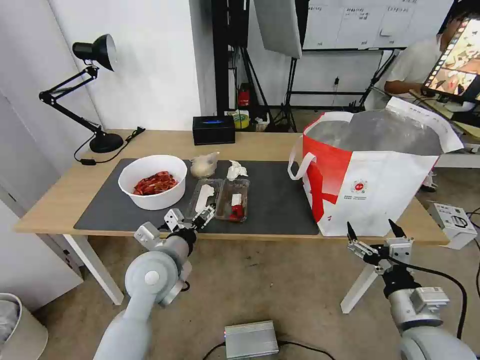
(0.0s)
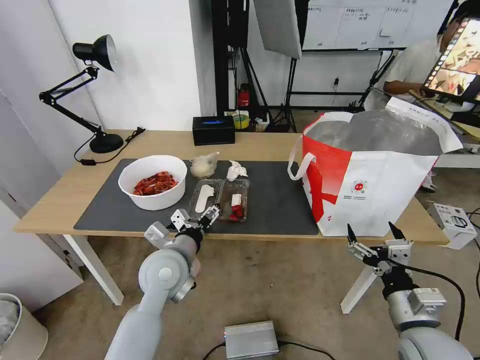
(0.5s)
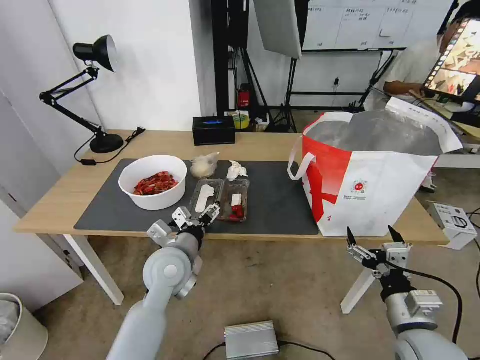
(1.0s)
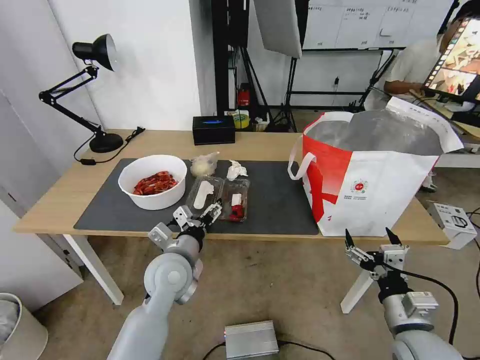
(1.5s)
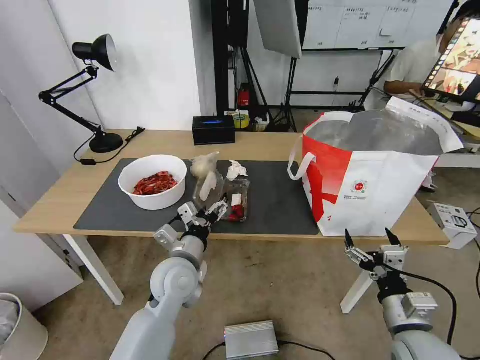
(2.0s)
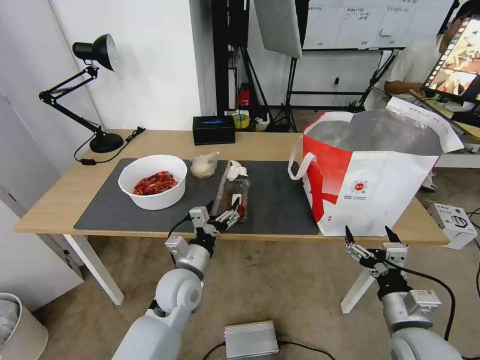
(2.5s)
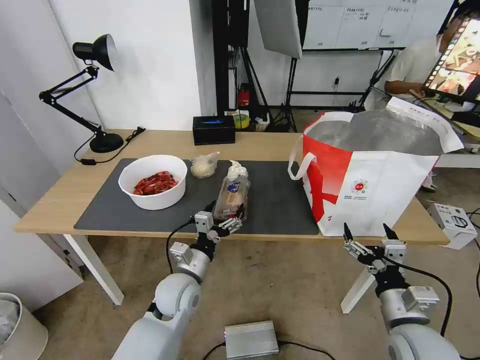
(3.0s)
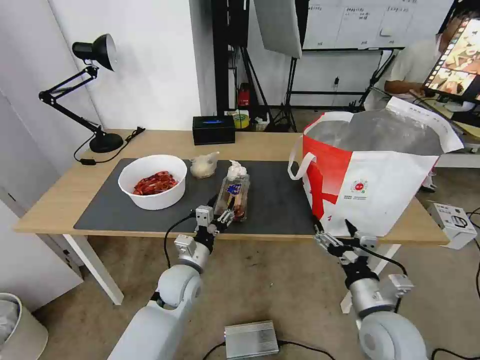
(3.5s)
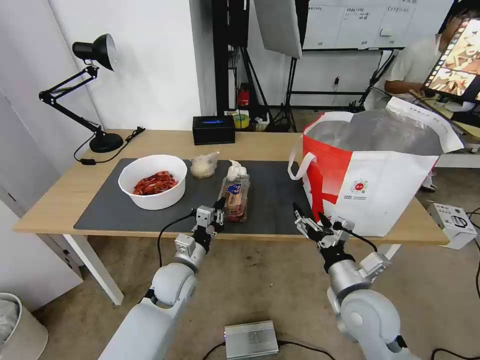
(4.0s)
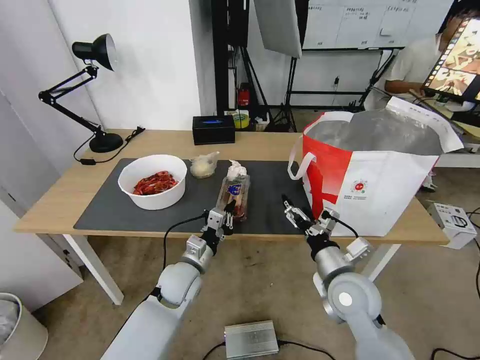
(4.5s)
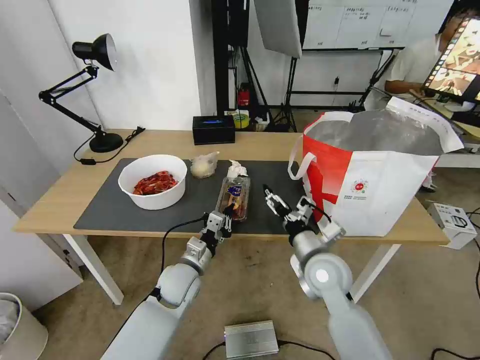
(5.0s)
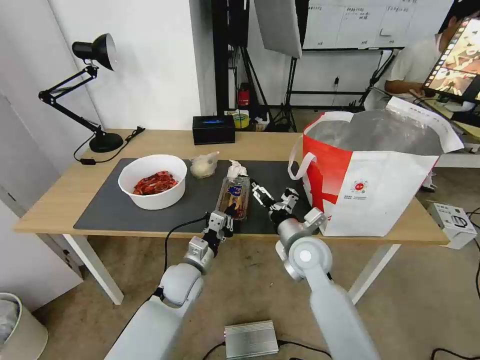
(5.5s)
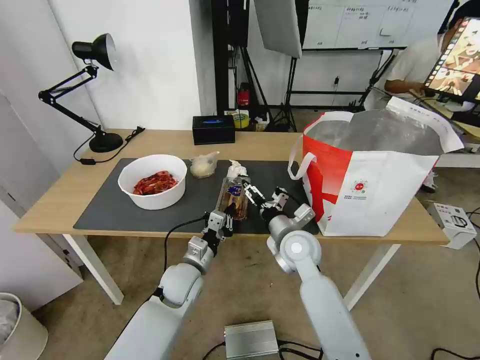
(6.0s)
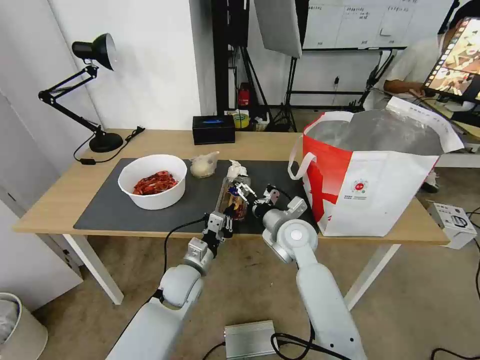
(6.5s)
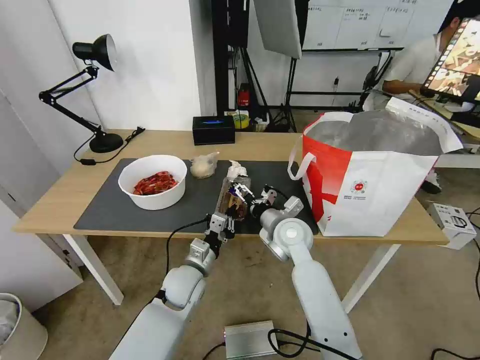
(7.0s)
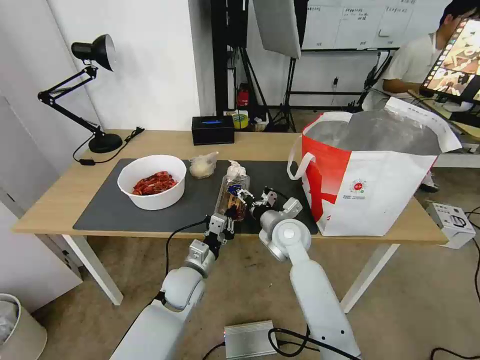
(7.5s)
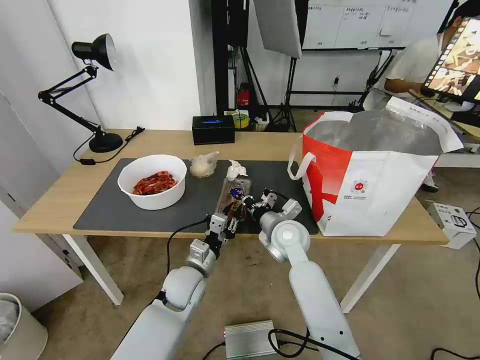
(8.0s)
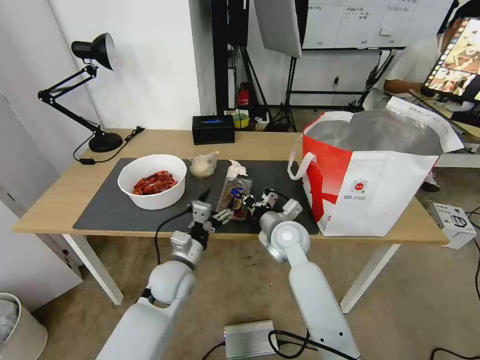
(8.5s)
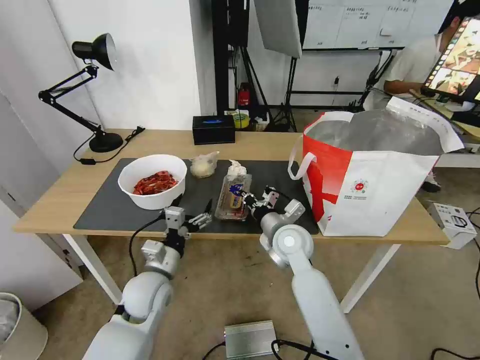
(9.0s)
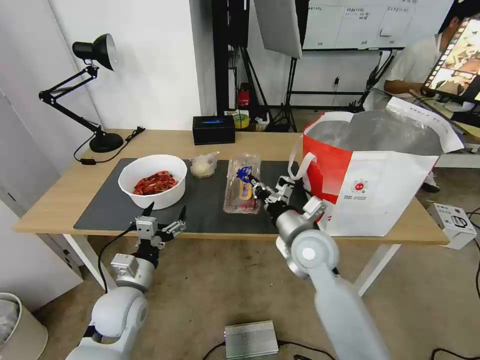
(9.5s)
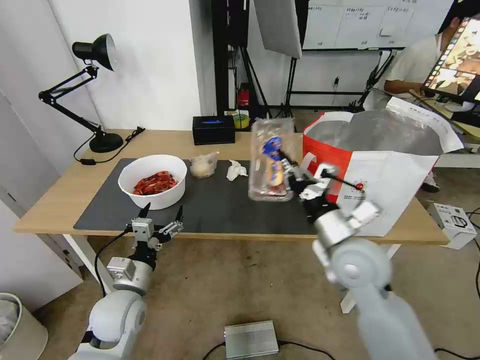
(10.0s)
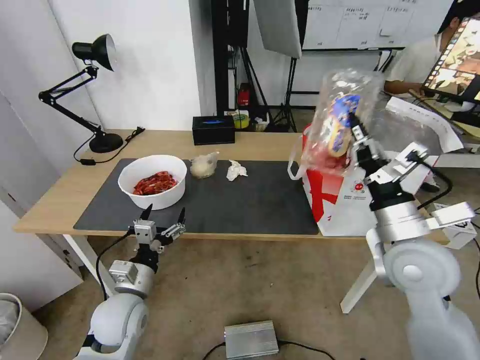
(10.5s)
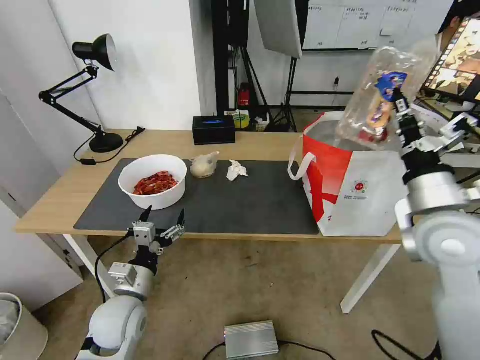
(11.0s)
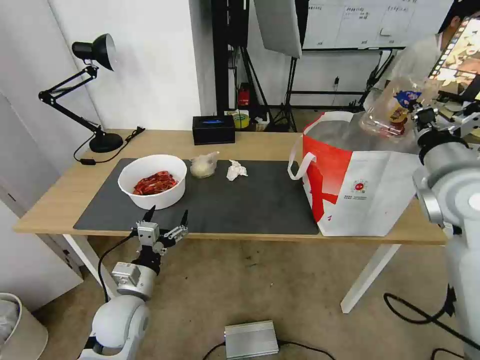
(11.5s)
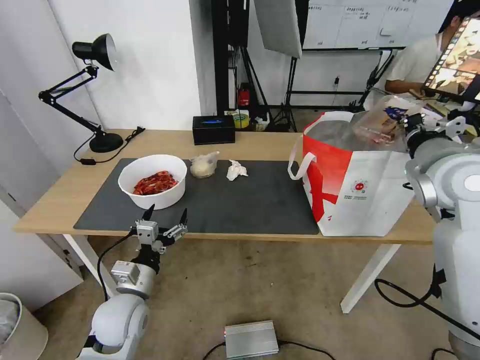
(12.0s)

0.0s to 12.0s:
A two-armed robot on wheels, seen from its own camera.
Task of the whole recording: Pick up the trash from the table and place it into the takeout bag.
0.0s to 2.0s: The left gripper ends up approximately 5 cm from where it was.
2.0s to 4.0s: The right gripper moves to the left and forward, about 10 cm. The left gripper heads downward, covering some 5 cm, and closes its fingers.
4.0s to 6.0s: The right gripper travels forward and to the left by some 20 cm.
6.0s to 8.0s: The right gripper closes up.
8.0s to 10.0s: The left gripper travels to the left and backward by about 15 cm, and opens up, while the right gripper shifts some 20 cm backward, to the right and upward.
10.0s to 12.0s: The right gripper heads upward, to the right and forward, covering about 20 cm.

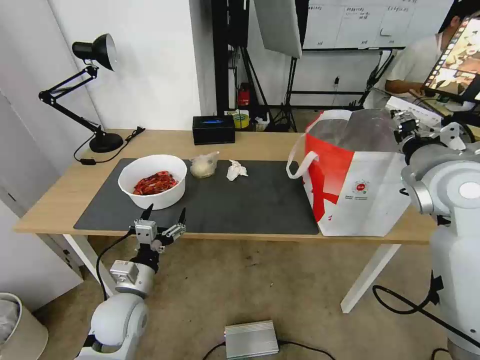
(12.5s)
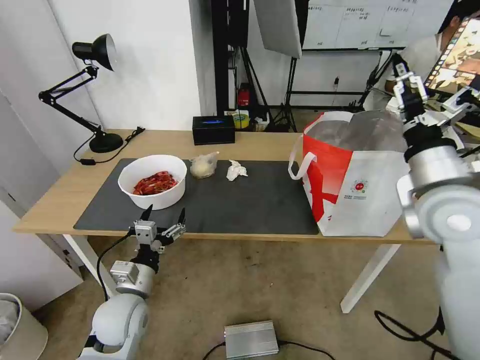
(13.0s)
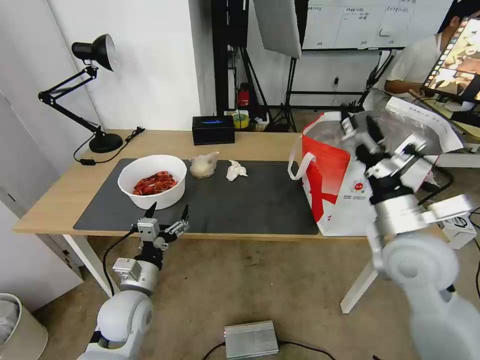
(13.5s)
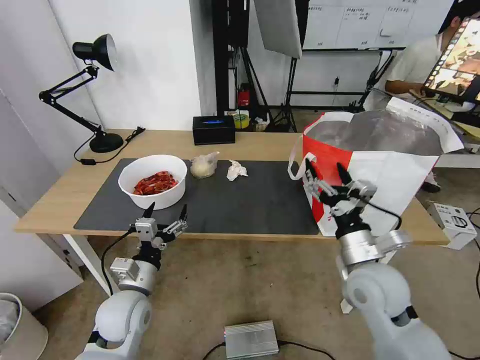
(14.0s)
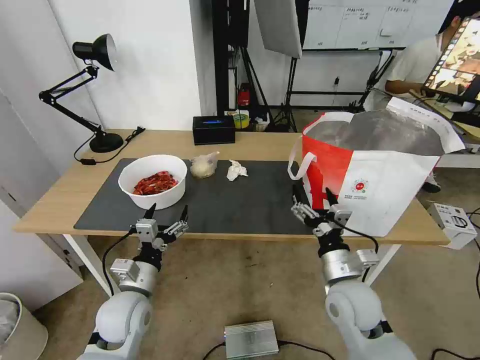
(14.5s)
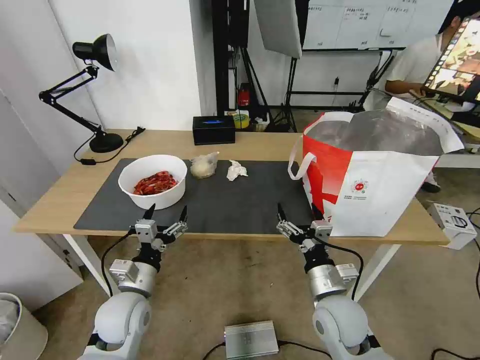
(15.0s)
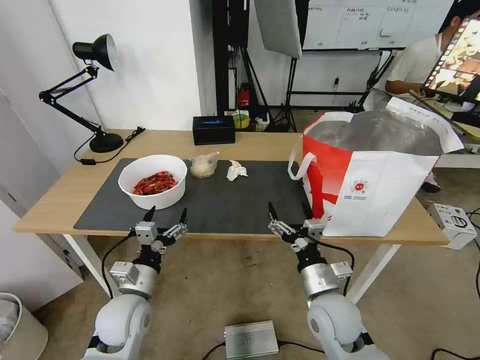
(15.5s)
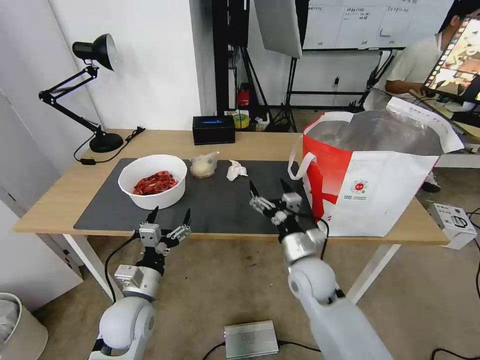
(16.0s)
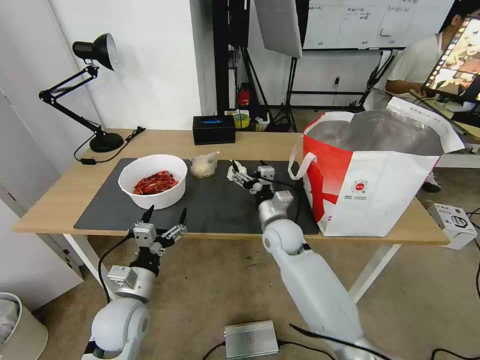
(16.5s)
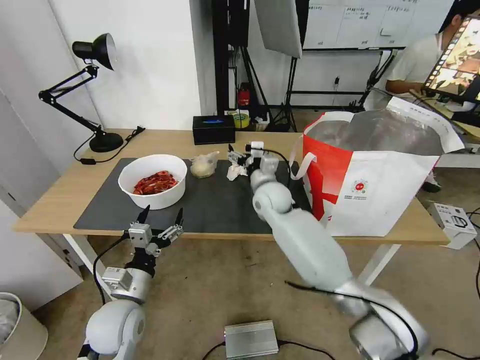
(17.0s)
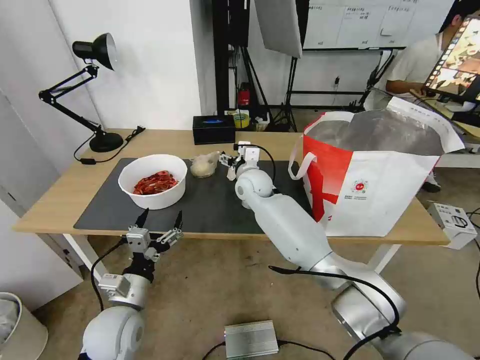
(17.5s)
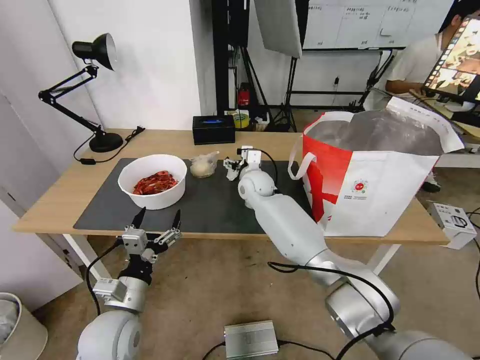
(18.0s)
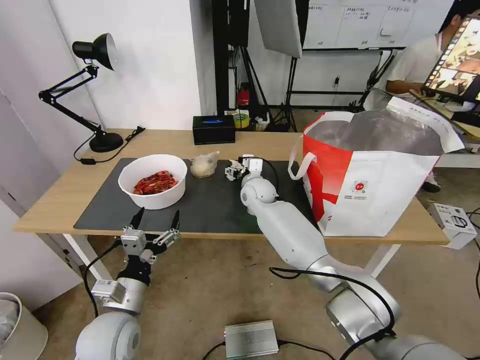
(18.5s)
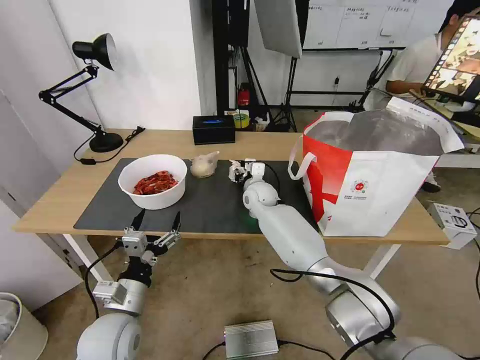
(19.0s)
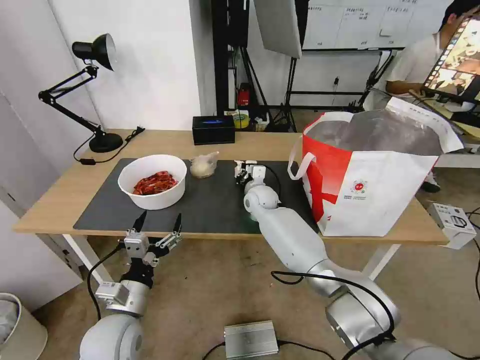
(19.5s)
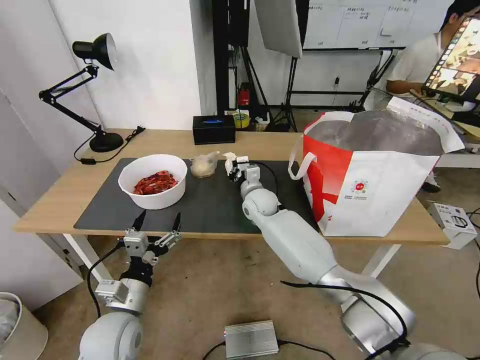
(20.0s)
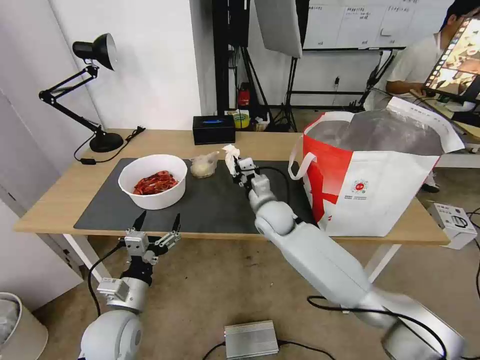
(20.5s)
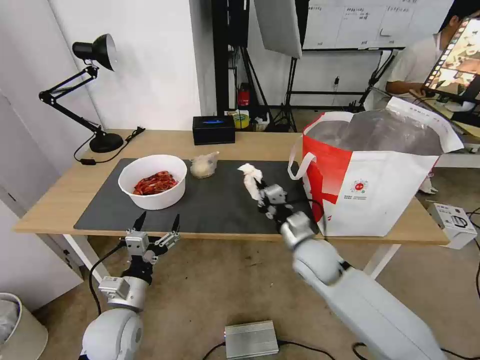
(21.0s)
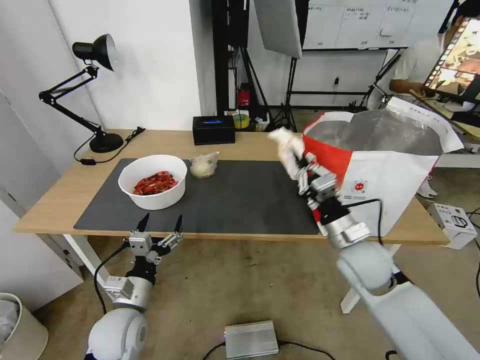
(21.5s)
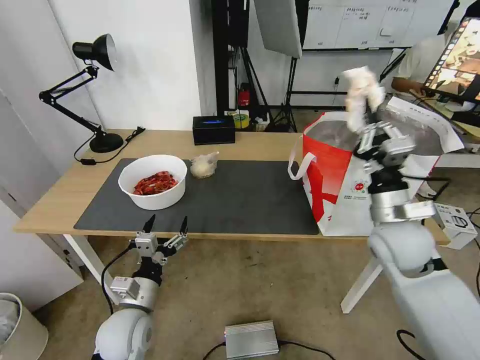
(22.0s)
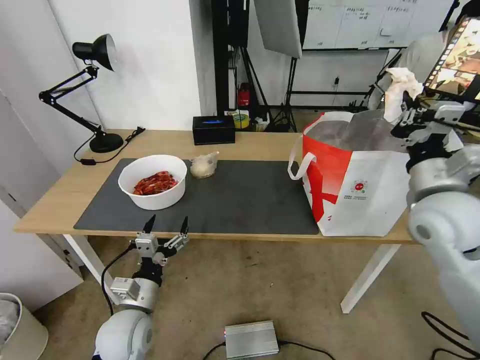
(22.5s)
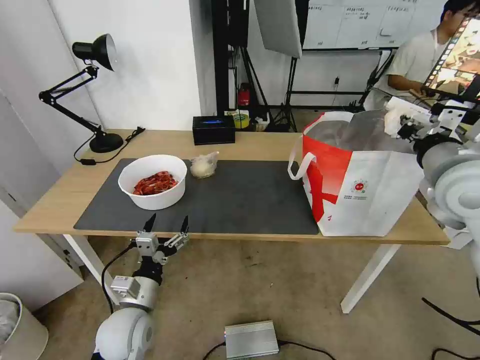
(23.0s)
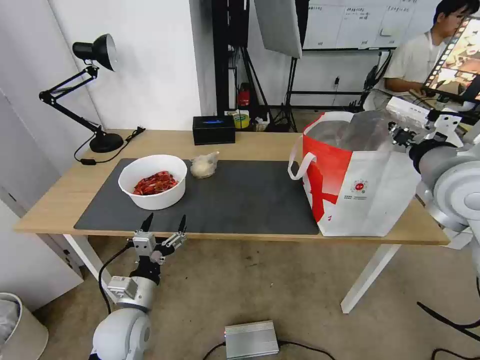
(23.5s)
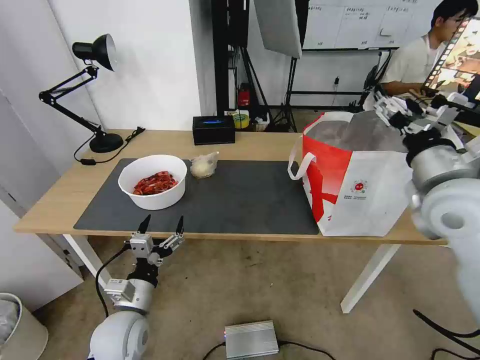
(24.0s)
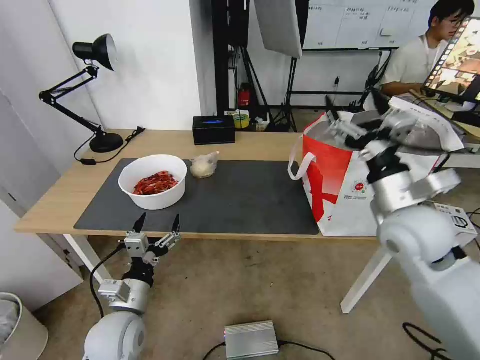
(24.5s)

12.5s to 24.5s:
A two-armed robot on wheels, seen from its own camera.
Task of the whole recording: Pick up the trash from the table and place it into the takeout bag.
12.5s to 14.5s: The right gripper goes roughly 25 cm downward, to the left and backward, and opens up.
14.5s to 16.5s: The right gripper heads forward and to the left, covering some 20 cm.
16.5s to 18.5s: The right gripper moves forward, some 15 cm.
18.5s to 20.5s: The right gripper goes roughly 10 cm backward, and closes up.
20.5s to 22.5s: The right gripper goes about 35 cm to the right, upward and backward.
22.5s to 24.5s: The right gripper moves some 5 cm upward and comes back, and opens up.

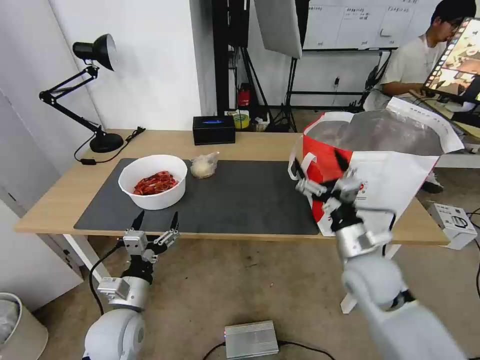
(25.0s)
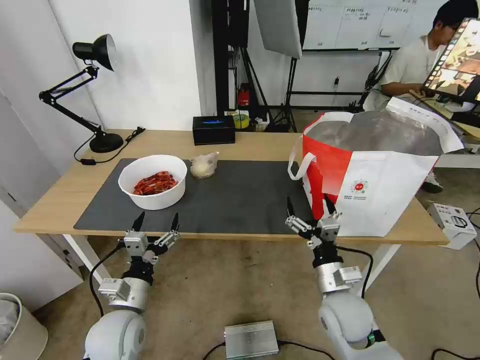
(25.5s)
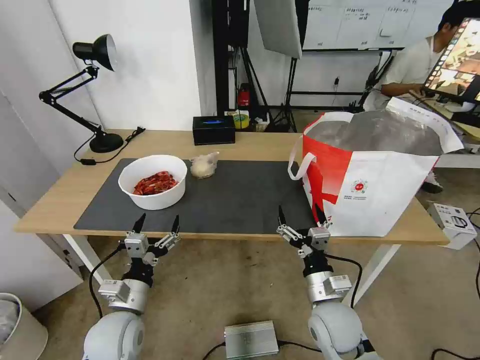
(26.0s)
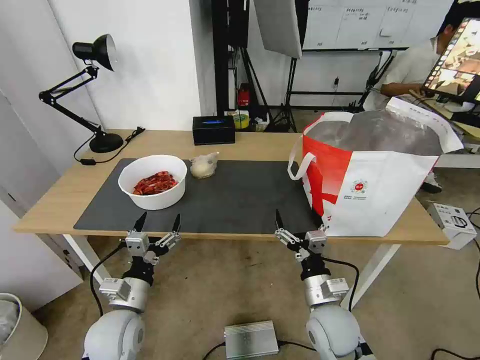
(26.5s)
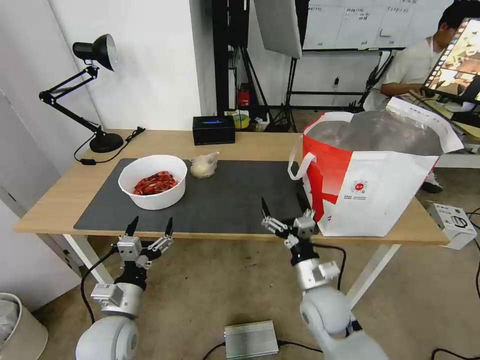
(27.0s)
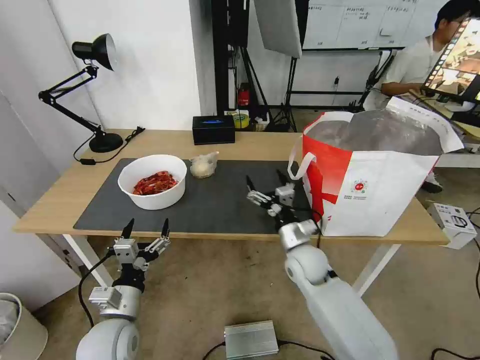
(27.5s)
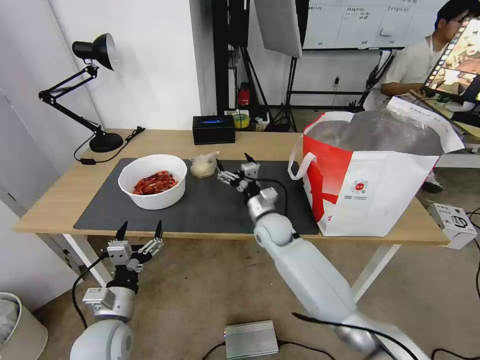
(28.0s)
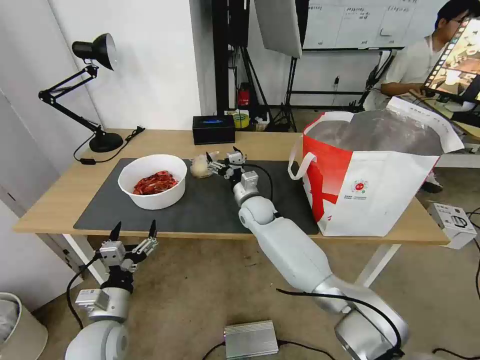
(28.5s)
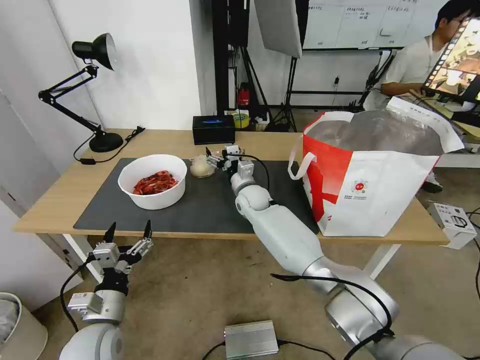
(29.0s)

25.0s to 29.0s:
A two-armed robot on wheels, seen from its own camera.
Task of the whole recording: Pick up the trash from the table and place it into the takeout bag.
25.0s to 27.0s: The right gripper moves downward and to the left, roughly 10 cm.
27.0s to 29.0s: The right gripper moves forward and to the left, approximately 30 cm.
